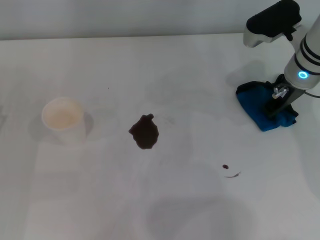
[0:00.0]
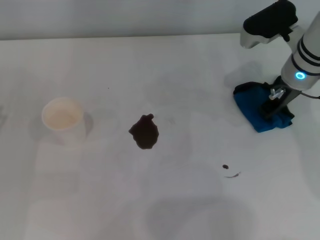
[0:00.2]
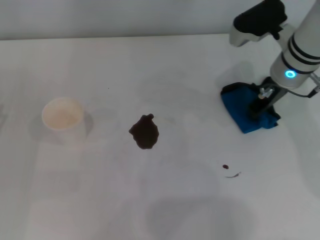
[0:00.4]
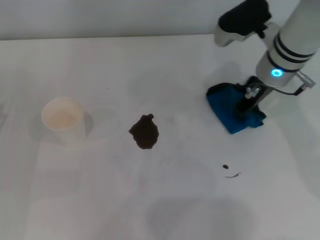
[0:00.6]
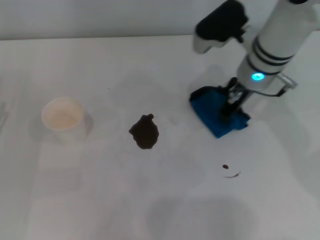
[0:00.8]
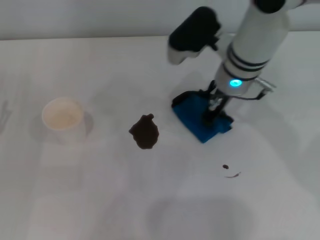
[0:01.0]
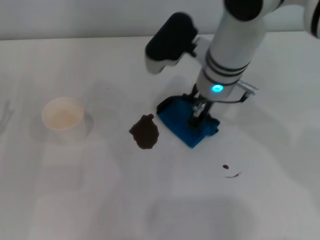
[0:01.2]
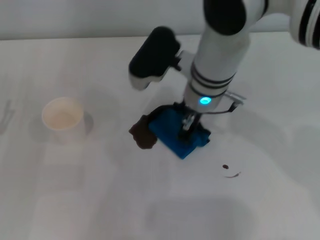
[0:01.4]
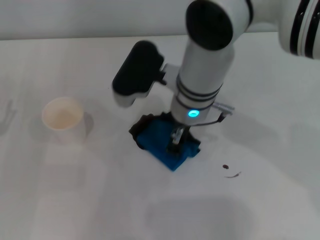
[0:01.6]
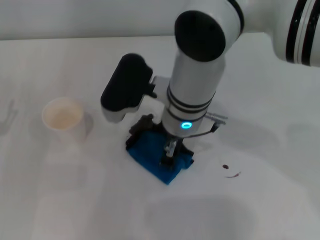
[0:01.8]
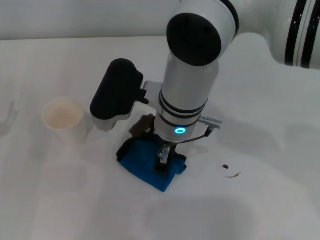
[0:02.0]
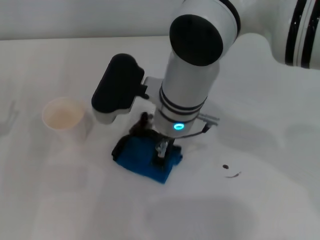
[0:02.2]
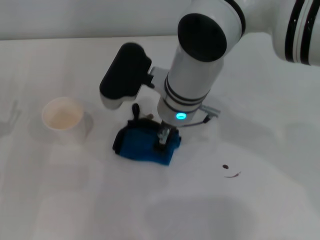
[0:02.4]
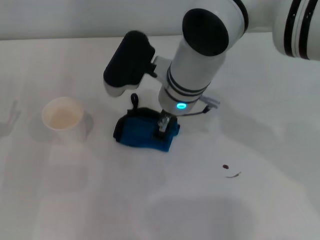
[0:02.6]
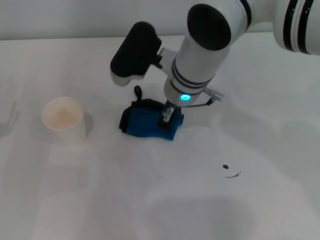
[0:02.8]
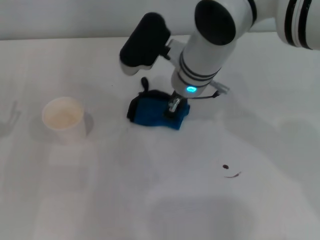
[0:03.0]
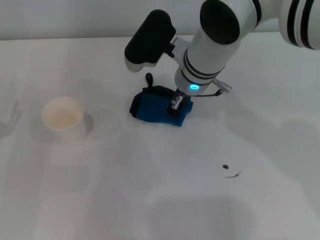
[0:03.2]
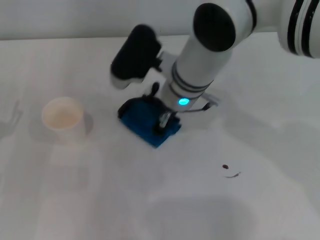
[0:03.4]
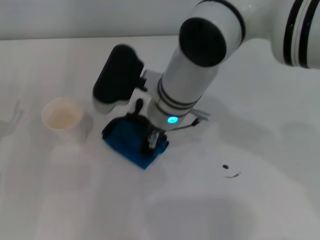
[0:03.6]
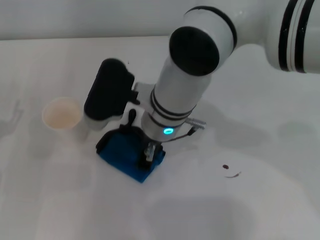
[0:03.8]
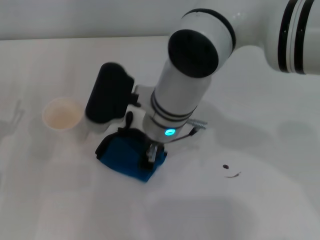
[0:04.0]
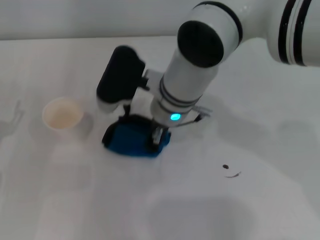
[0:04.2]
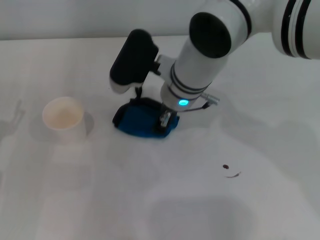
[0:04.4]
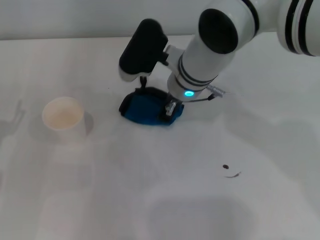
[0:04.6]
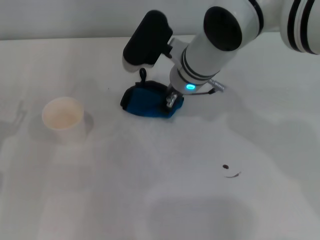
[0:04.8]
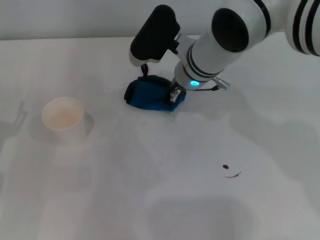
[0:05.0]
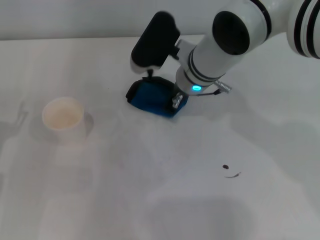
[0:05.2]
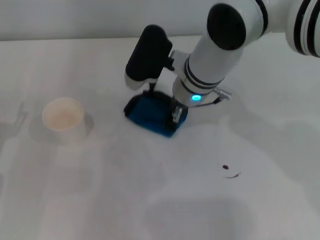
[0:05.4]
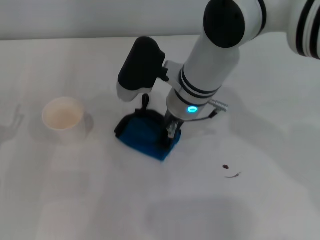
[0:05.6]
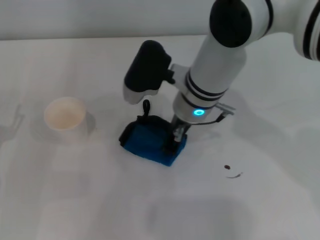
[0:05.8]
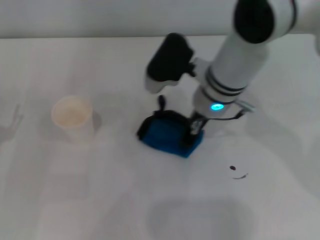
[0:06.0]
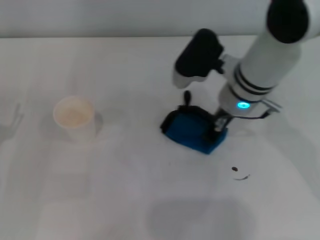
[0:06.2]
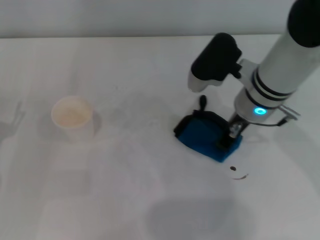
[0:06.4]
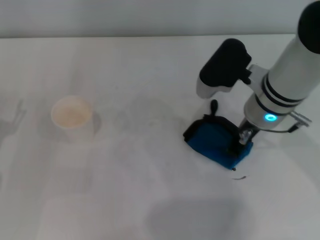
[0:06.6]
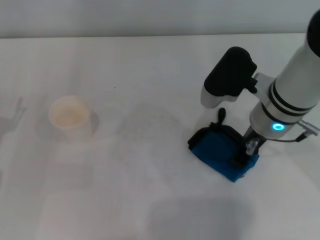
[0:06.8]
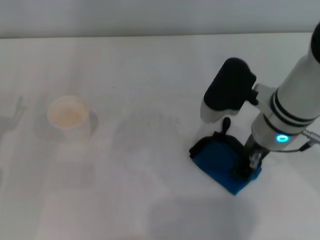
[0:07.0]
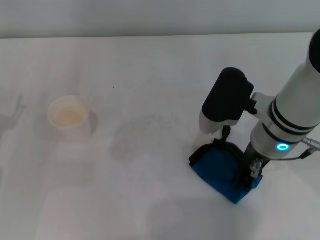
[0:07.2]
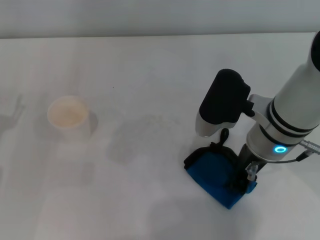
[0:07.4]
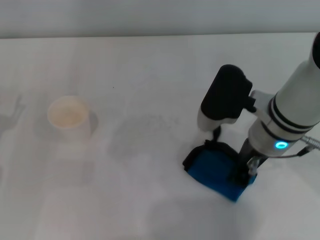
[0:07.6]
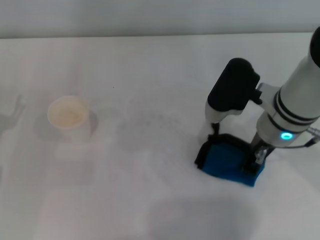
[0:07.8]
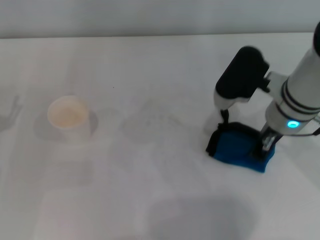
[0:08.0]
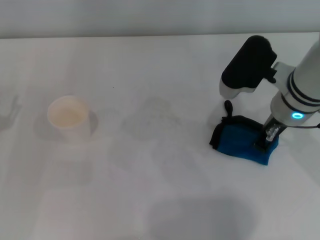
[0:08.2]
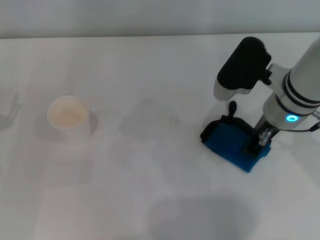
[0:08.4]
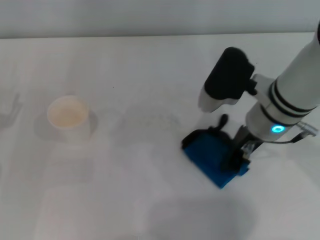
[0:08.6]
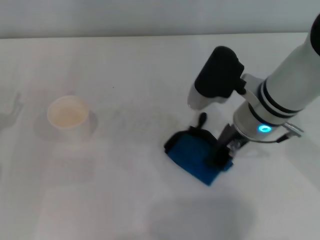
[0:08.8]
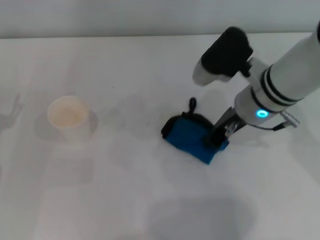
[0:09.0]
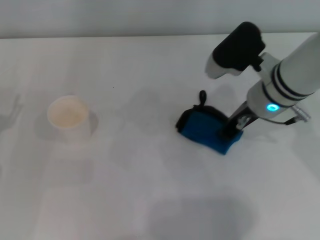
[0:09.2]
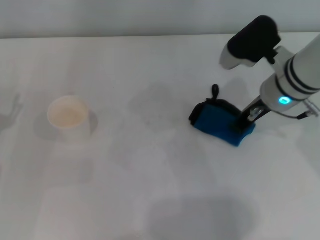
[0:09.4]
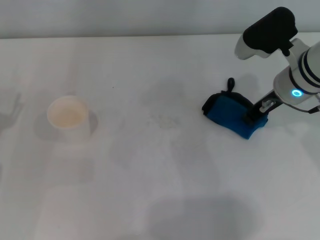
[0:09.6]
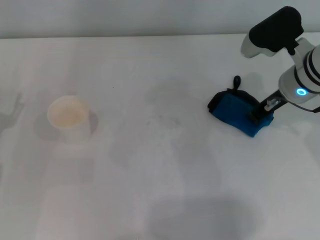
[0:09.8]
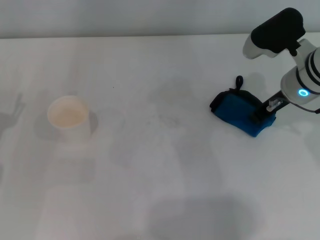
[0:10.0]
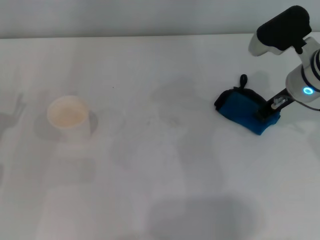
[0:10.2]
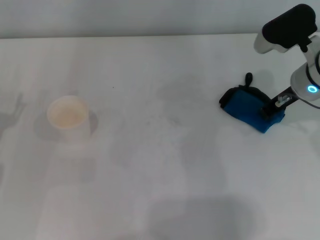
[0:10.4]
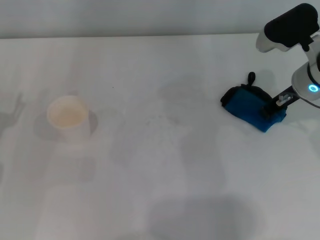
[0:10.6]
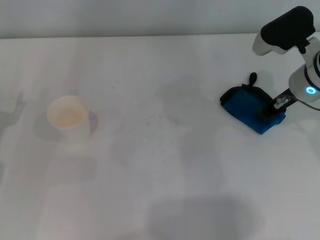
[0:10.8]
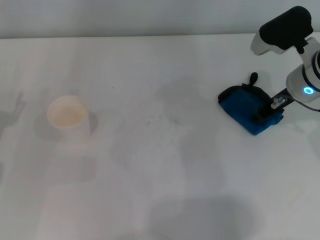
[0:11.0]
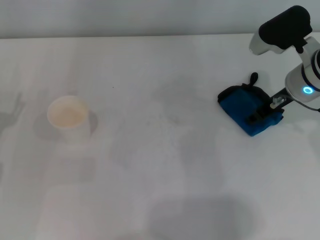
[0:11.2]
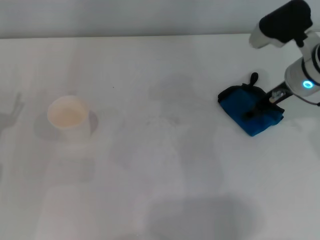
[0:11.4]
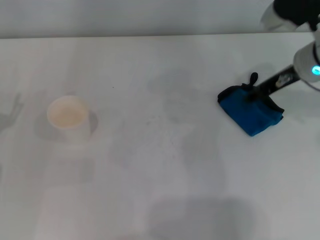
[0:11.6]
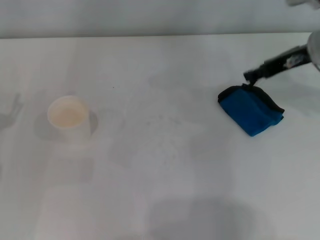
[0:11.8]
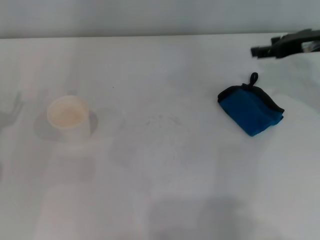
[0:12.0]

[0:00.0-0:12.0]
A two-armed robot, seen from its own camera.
Step, 0:00.0 to 0:10.4: Wipe the stains off the table with the right gripper.
Step, 0:10.6 to 0:11.2: Place the rag on the table with the right gripper.
0:00.0 to 0:01.6: The right gripper heads to the left, covering some 20 cm.
0:01.6 to 0:03.0: There are only small adjustments of the grippers.
0:04.4 to 0:06.0: The right gripper ends up some 5 cm from where it was.
0:06.0 to 0:07.6: The right gripper is displaced backward and to the right by about 10 cm.
0:07.6 to 0:09.0: The grippers move only a little.
0:09.0 to 0:10.4: The right gripper shifts some 10 cm to the right.
0:10.4 to 0:12.0: The right gripper is displaced to the right by some 5 cm, and opens up.

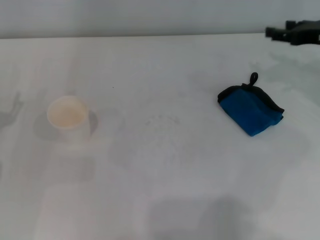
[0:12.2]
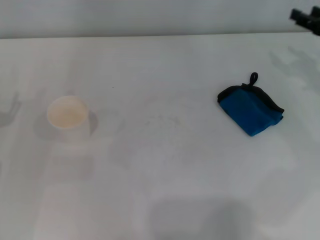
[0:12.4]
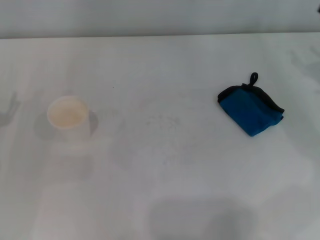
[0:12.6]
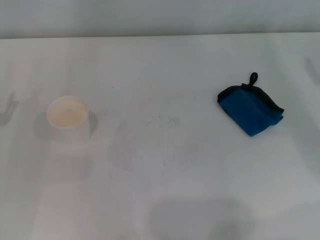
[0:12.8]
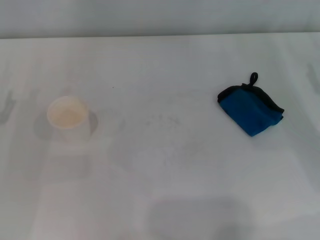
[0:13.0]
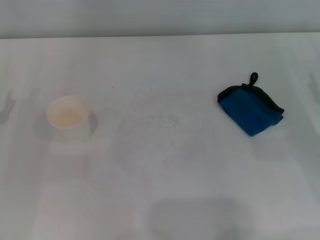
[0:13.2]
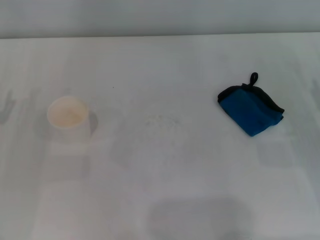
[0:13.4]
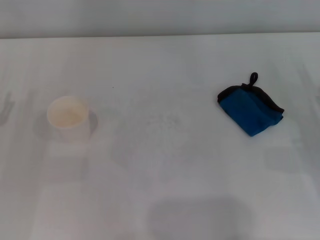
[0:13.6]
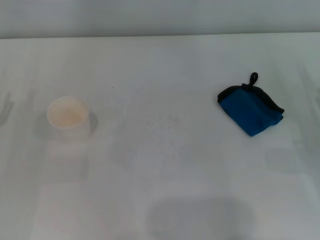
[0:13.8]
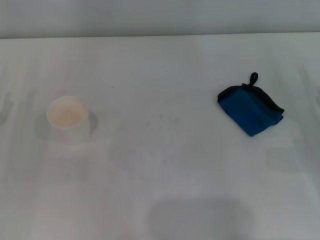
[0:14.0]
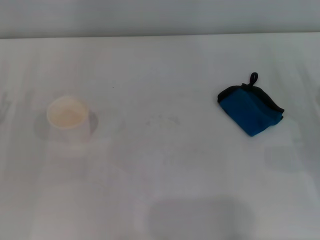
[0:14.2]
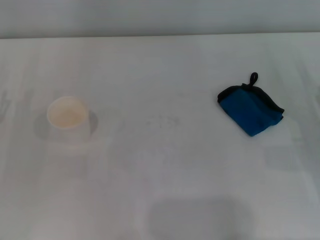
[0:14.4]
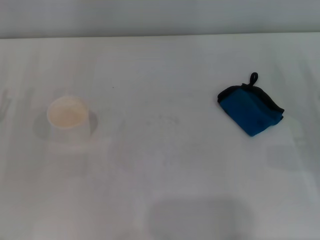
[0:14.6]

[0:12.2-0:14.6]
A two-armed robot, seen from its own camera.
0:12.2 to 0:13.4: The right gripper heads backward and downward, covering approximately 15 cm.
